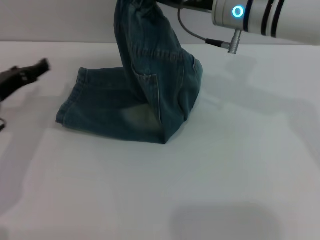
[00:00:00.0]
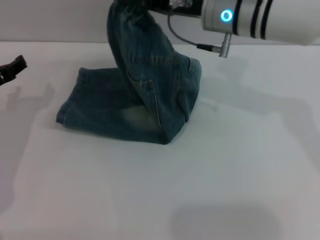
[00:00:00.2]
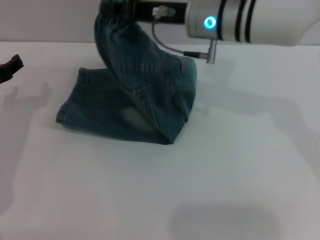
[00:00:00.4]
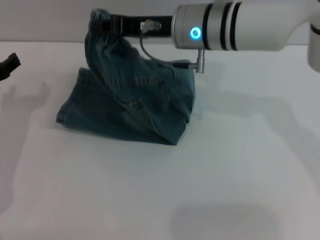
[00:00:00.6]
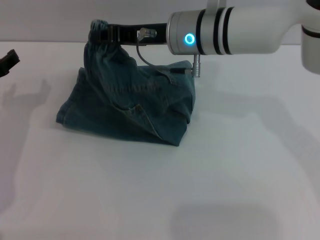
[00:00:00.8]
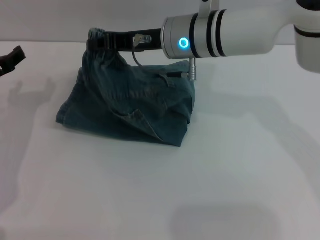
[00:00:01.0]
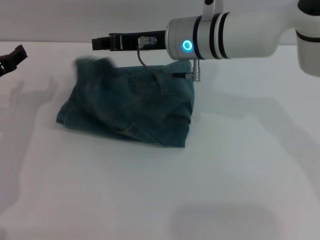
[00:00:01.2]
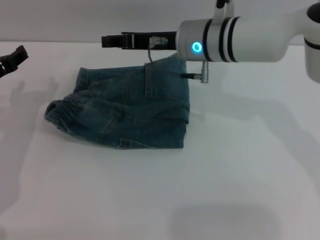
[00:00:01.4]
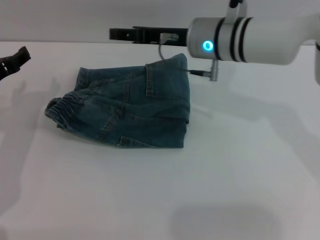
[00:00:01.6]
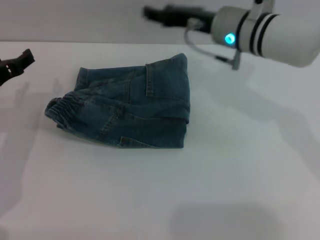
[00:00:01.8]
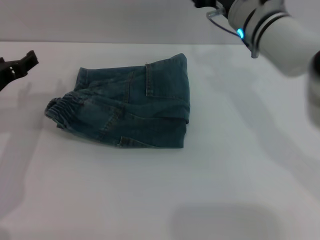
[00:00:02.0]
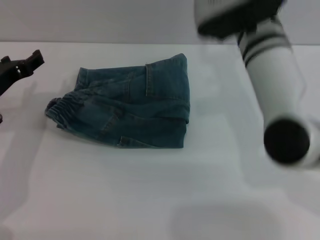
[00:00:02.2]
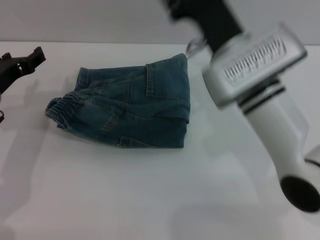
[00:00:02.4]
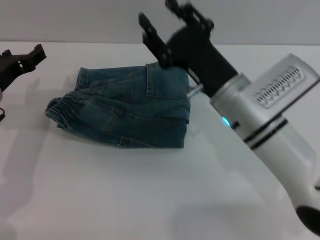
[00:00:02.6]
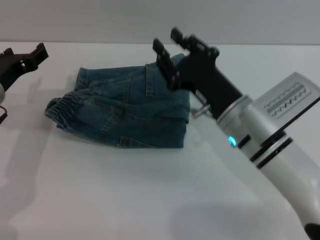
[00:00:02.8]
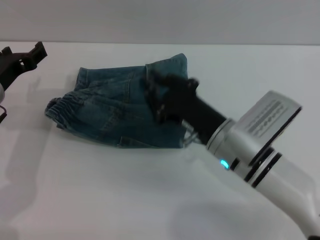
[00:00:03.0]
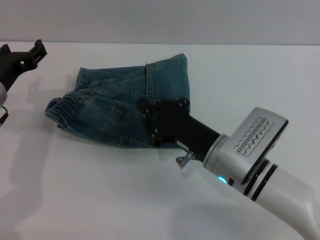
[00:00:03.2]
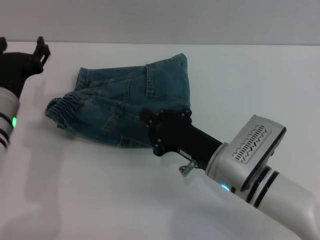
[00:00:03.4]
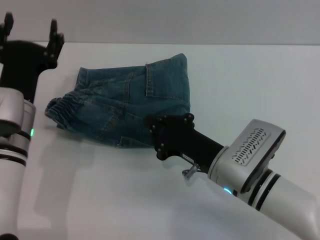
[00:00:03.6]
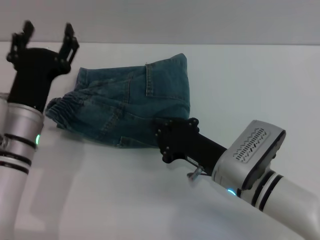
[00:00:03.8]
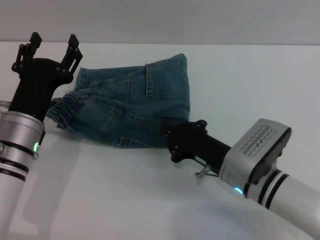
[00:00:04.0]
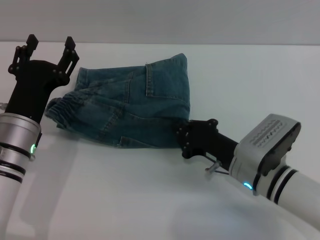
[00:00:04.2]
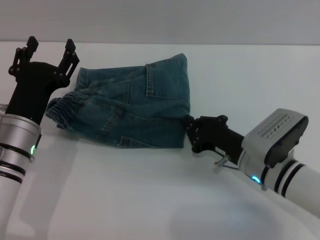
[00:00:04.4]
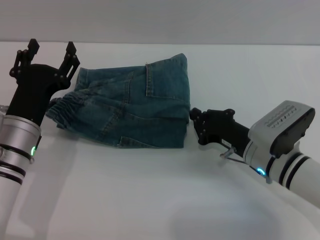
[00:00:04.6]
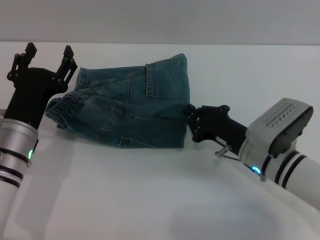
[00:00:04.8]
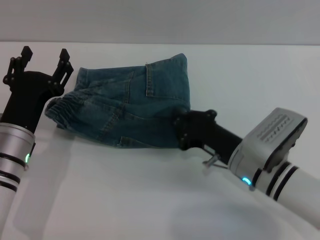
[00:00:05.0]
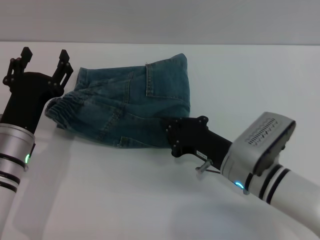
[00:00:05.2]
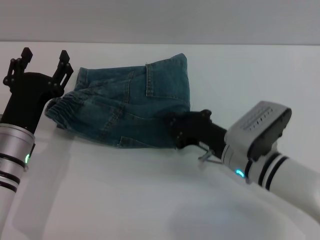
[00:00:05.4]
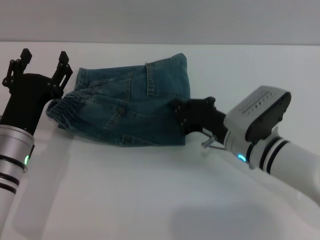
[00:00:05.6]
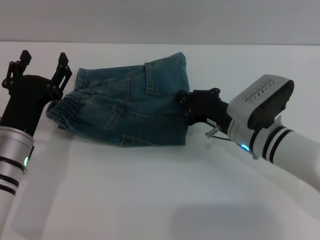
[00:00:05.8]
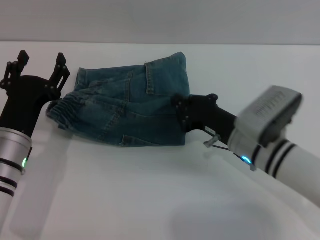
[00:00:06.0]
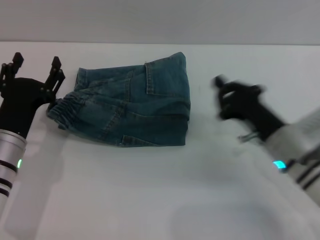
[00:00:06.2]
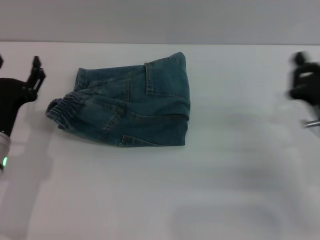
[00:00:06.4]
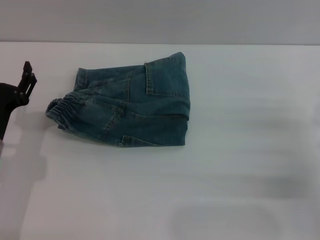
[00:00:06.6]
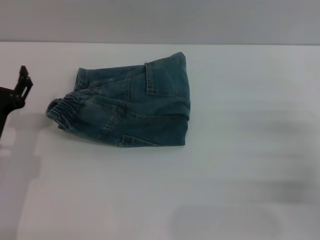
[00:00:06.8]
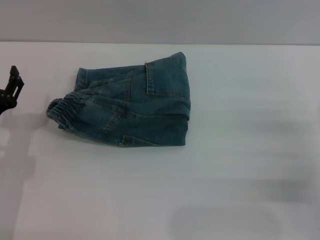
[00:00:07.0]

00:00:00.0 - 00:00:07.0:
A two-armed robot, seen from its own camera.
00:00:00.0 - 00:00:01.4: The right gripper moves roughly 5 cm.
00:00:01.4 - 00:00:02.8: The right gripper is displaced backward and downward by approximately 15 cm, and opens its fingers.
00:00:02.8 - 00:00:04.2: The right gripper goes some 5 cm downward, and closes its fingers, while the left gripper moves backward and to the right, roughly 10 cm.
00:00:04.2 - 00:00:05.6: The grippers make only small movements.
00:00:05.6 - 00:00:07.0: The left gripper goes roughly 5 cm to the left, while the right gripper heads to the right and backward, covering roughly 20 cm.
